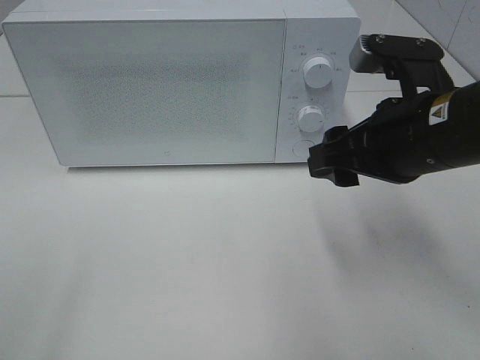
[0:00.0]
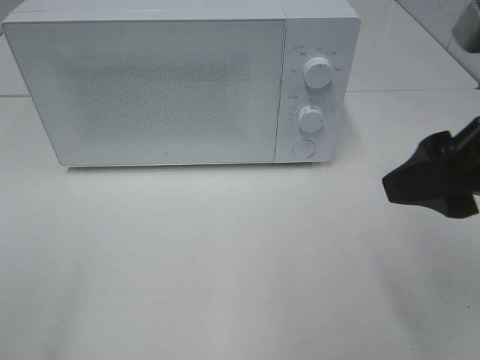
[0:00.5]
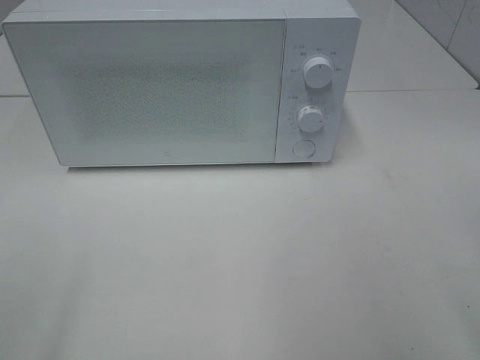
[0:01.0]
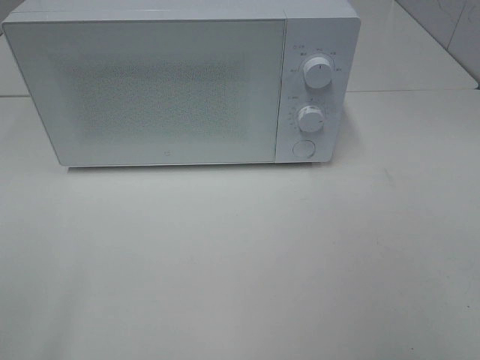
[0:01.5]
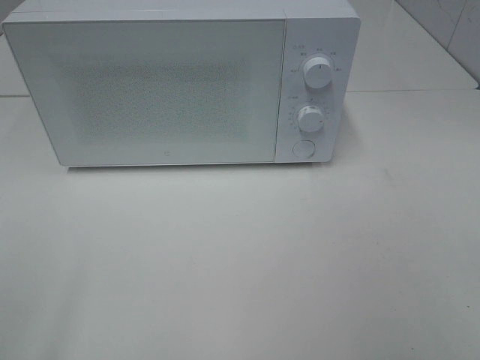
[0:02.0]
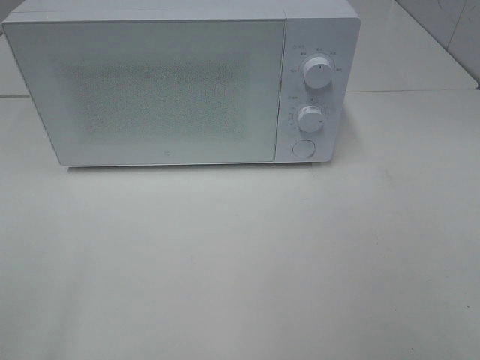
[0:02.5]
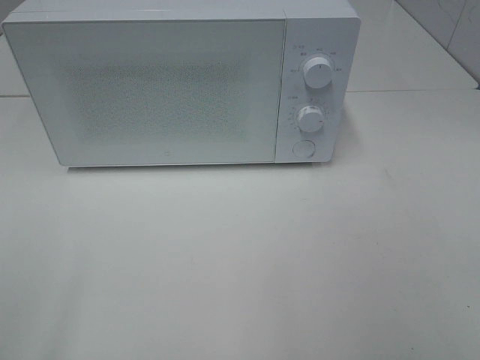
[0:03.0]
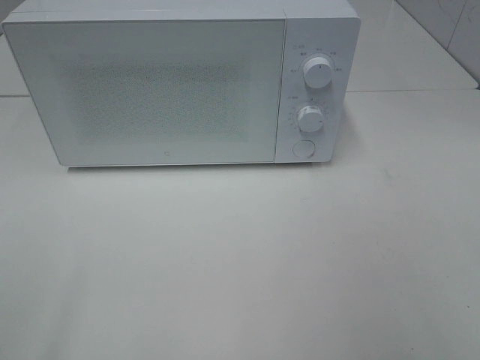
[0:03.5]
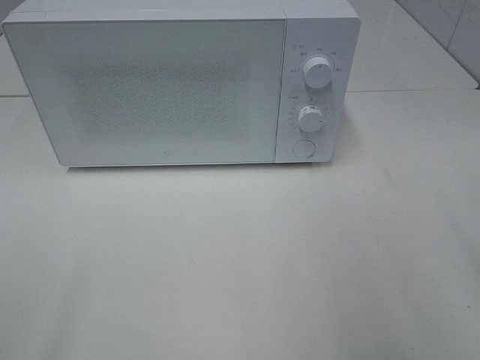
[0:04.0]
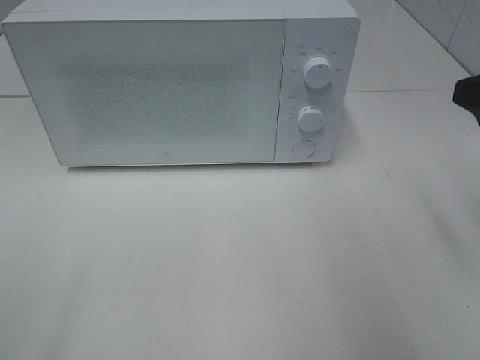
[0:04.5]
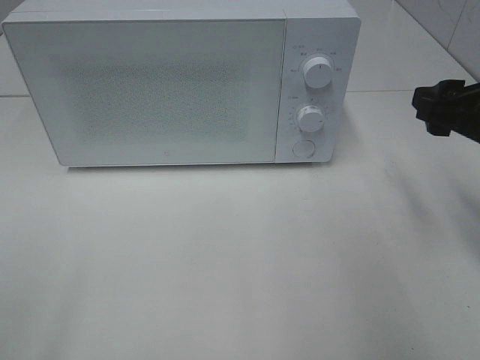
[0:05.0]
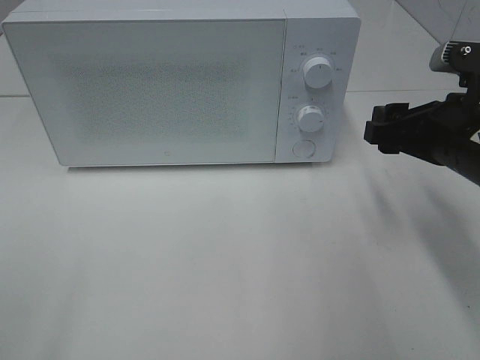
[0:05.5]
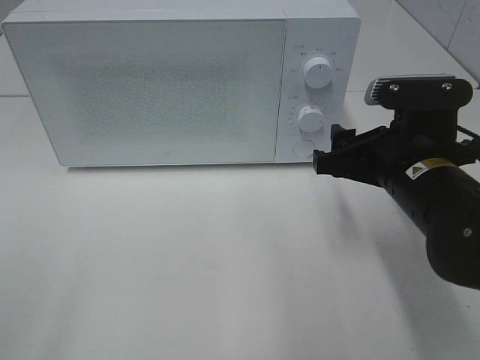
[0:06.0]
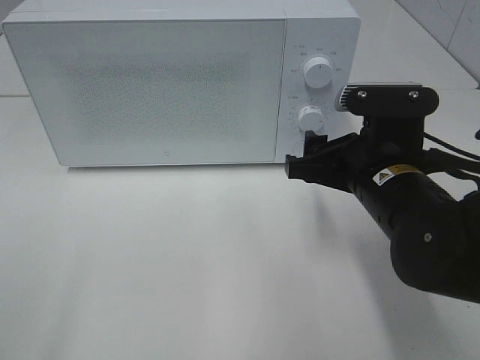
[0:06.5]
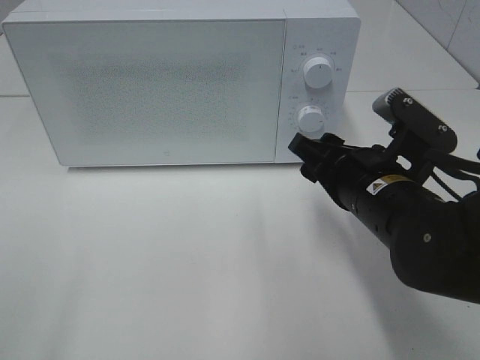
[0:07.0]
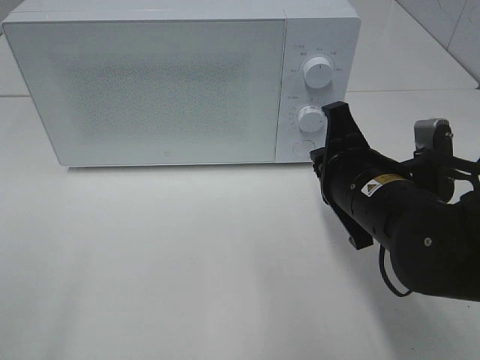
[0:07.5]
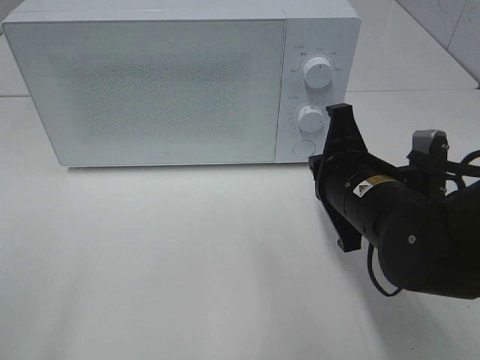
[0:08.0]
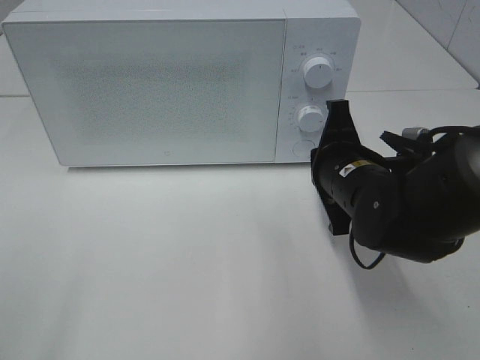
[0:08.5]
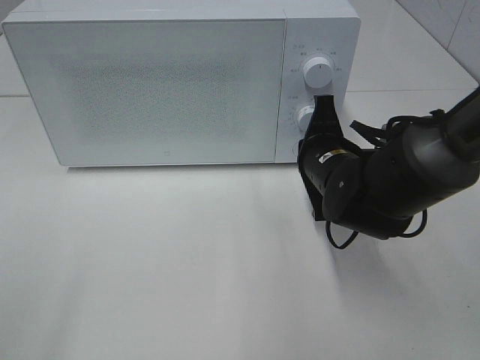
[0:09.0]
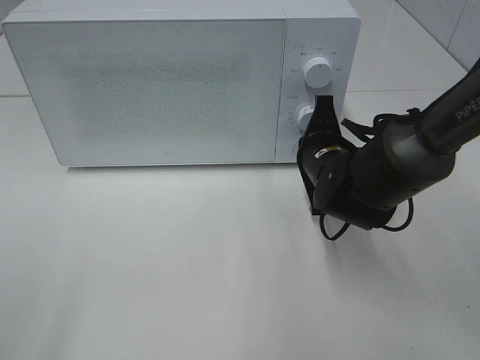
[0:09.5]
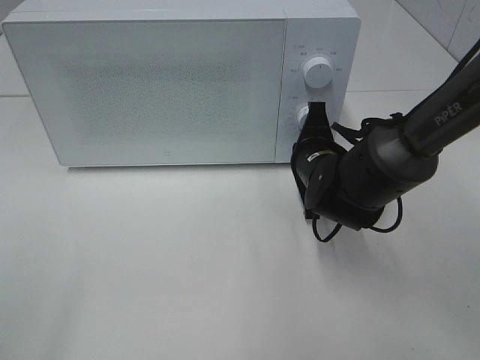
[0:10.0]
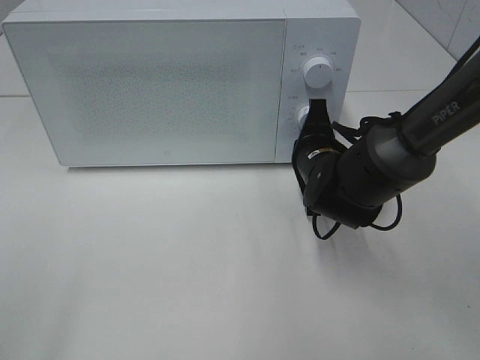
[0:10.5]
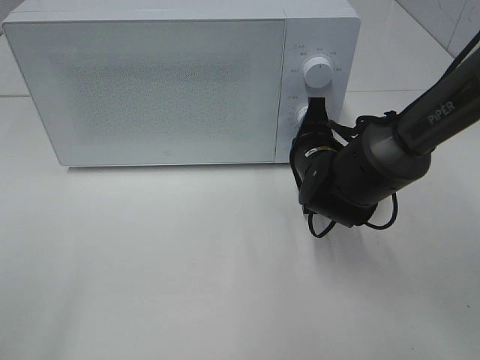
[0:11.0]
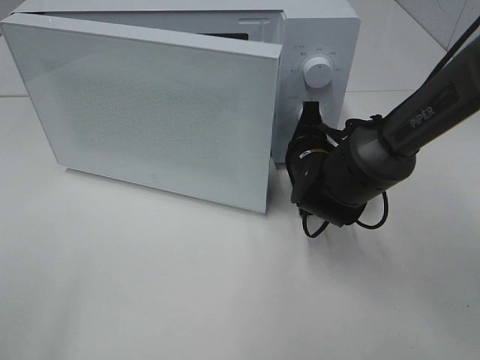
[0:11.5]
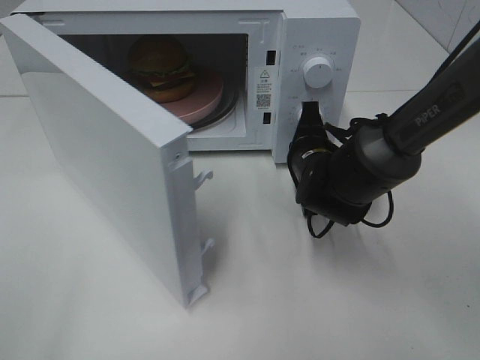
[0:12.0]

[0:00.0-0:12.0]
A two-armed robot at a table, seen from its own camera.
Task of the whole recording: Heat the burger.
0:00.0 to 0:02.0: The right gripper travels backward and to the right by approximately 25 cm.
0:04.0 to 0:06.0: The right gripper moves downward, to the left and forward, some 20 cm.
0:06.0 to 0:08.0: The right gripper closes.
0:08.0 to 0:10.0: The right gripper goes about 10 cm forward and downward.

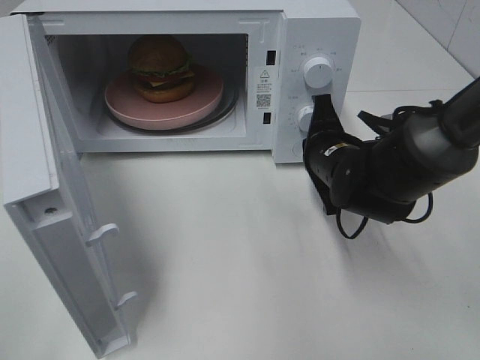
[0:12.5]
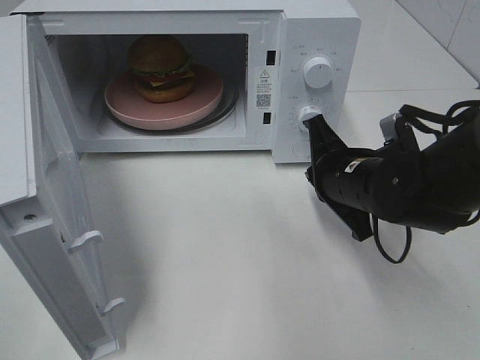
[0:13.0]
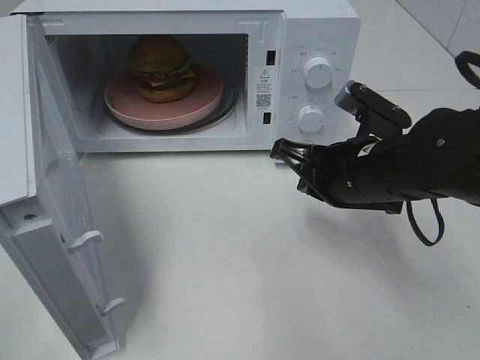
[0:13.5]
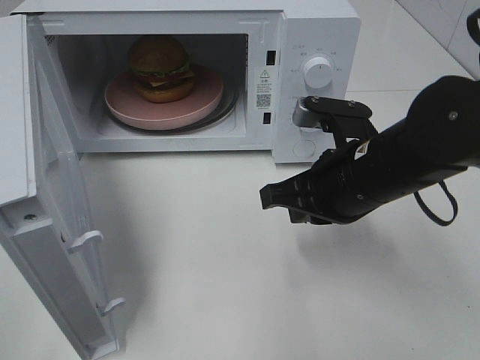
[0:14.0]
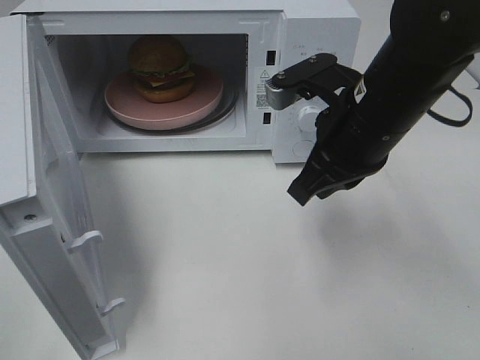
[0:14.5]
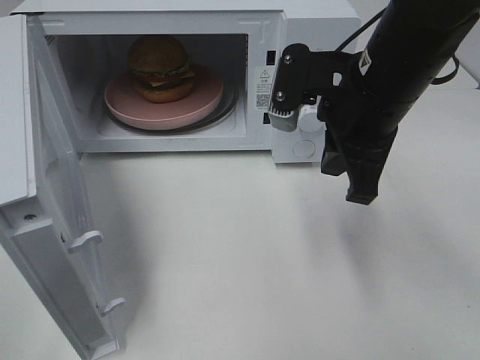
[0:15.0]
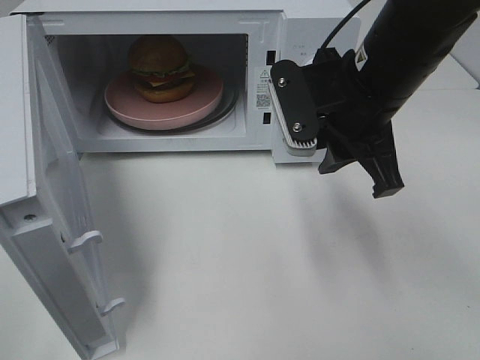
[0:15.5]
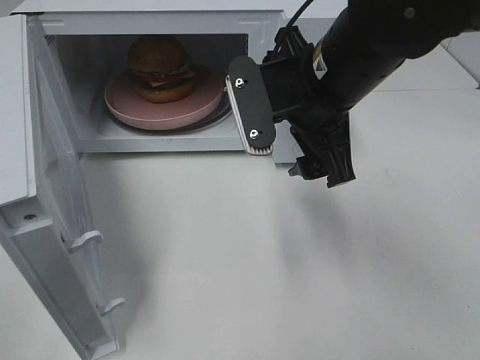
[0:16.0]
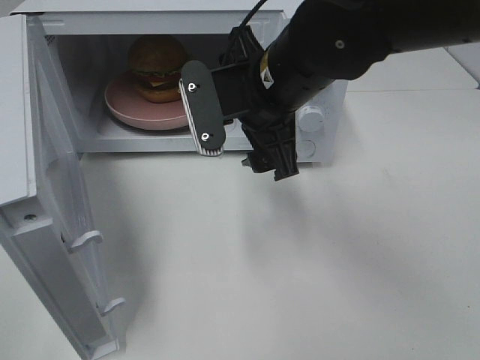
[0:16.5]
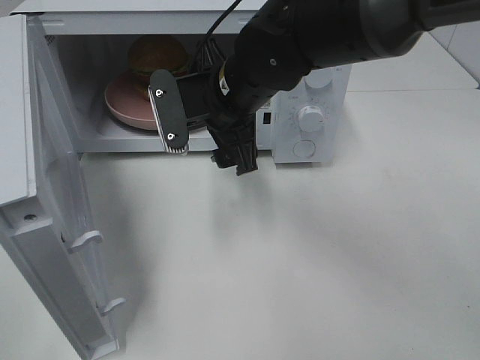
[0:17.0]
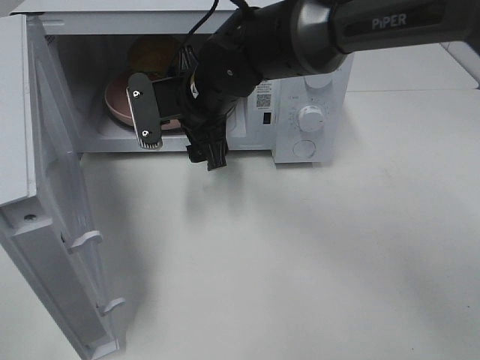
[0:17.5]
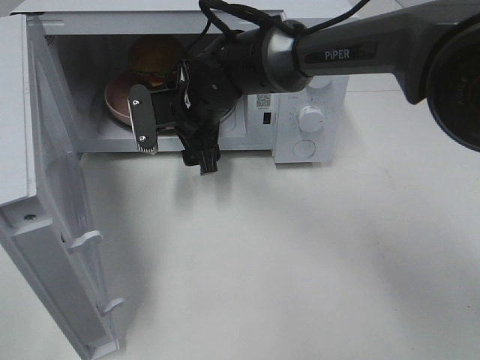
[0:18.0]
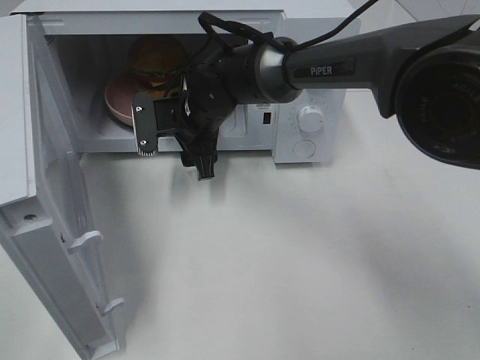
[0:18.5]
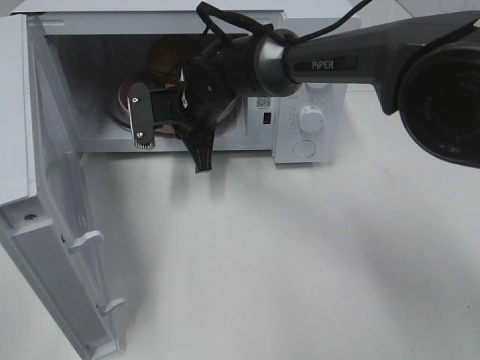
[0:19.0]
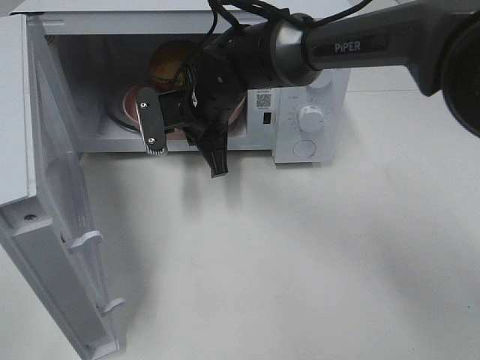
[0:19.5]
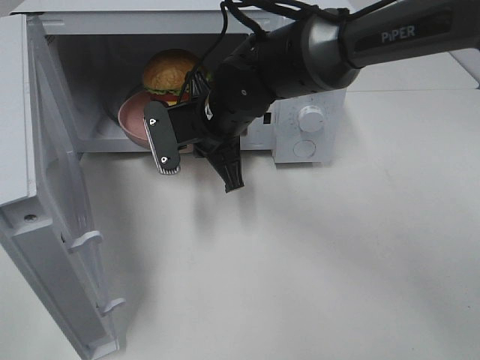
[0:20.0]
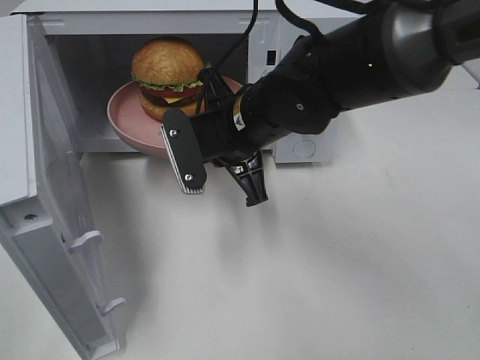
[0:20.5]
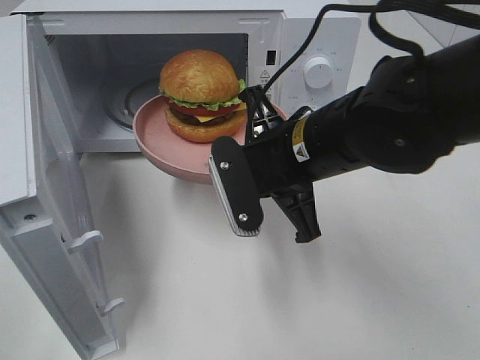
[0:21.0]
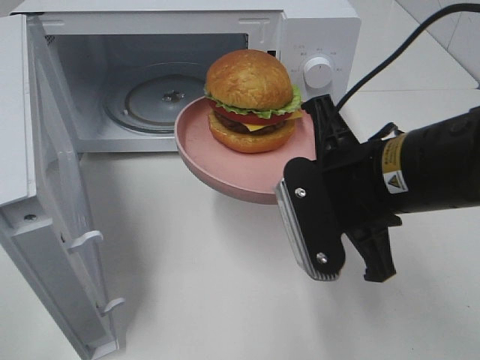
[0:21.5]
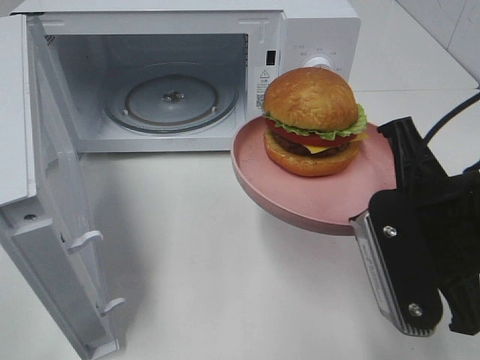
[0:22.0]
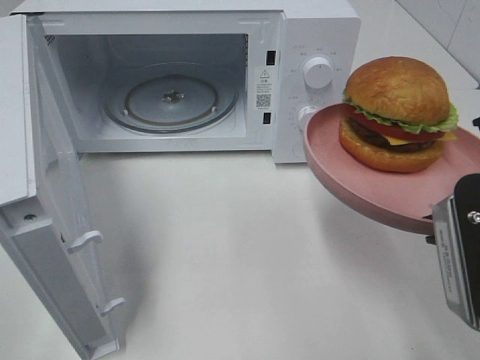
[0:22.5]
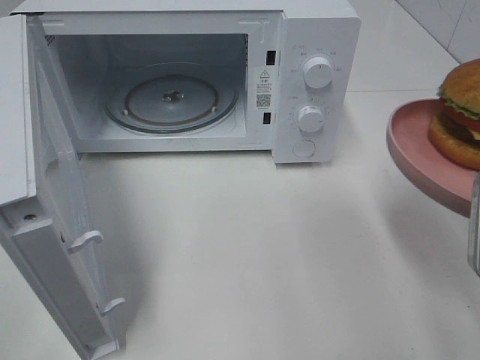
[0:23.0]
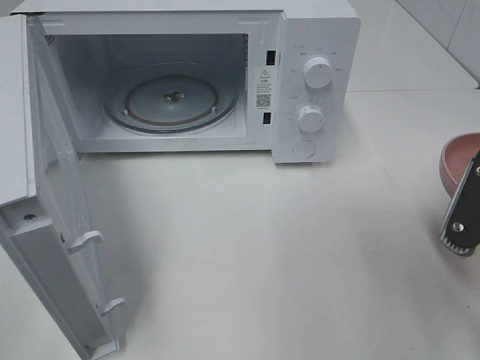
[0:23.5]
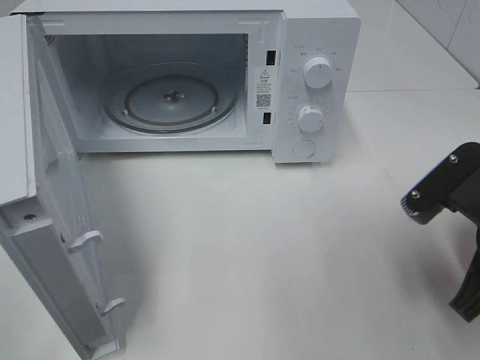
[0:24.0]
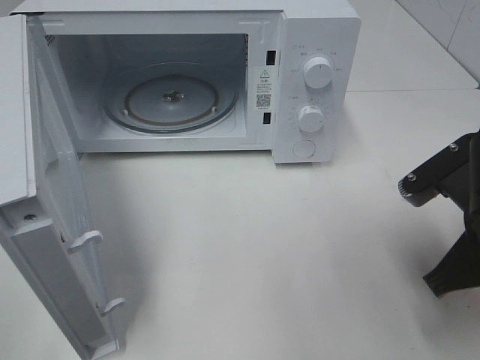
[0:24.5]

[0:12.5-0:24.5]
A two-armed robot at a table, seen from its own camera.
Task of the whole recording: Heat the burger.
Step, 0:13.0 to 0:18.5: Right hand: grab the plate with the hamburger.
0:12.5 to 0:14.5: The right gripper travels upward and backward by roughly 15 cm.
0:14.5 to 0:16.5: The right gripper goes approximately 10 cm to the left, and opens up.
0:16.5 to 0:18.5: The right gripper moves forward, downward and to the left, roughly 15 cm.
0:18.5 to 0:20.5: The right gripper shifts approximately 15 cm backward, to the right and upward, and closes.
0:20.5 to 0:22.5: The right gripper goes some 25 cm to the right and backward.
0:22.5 to 0:24.5: The right gripper travels downward and forward by about 10 cm.

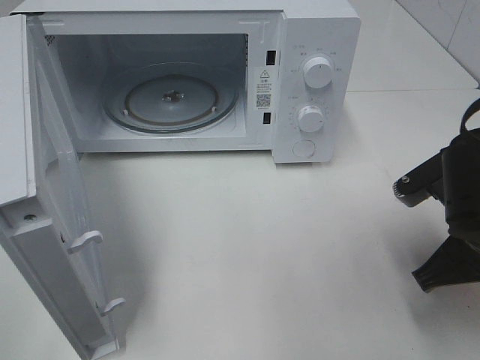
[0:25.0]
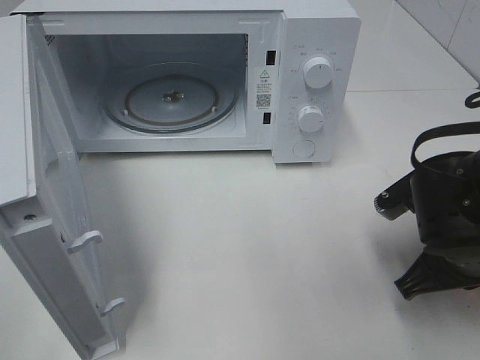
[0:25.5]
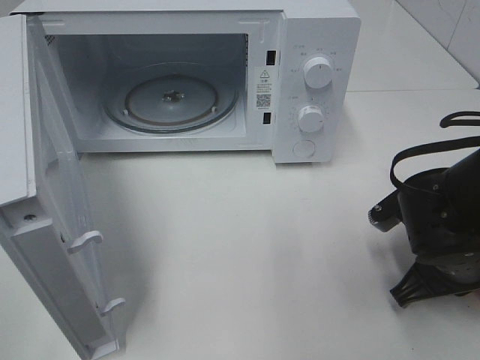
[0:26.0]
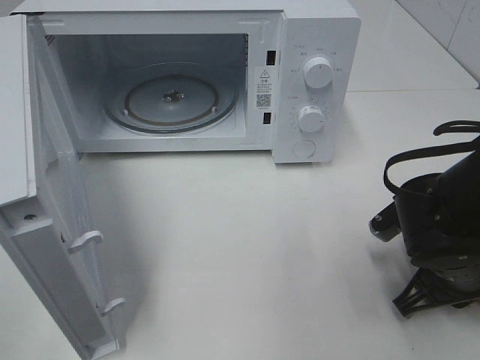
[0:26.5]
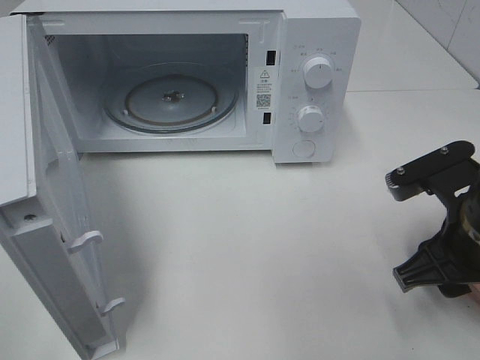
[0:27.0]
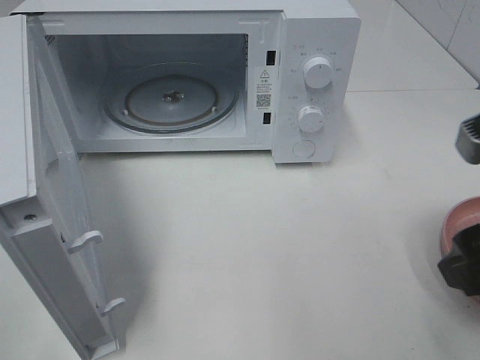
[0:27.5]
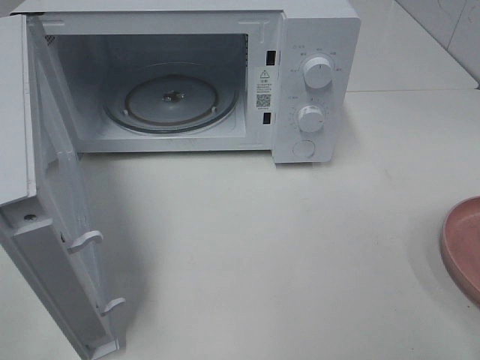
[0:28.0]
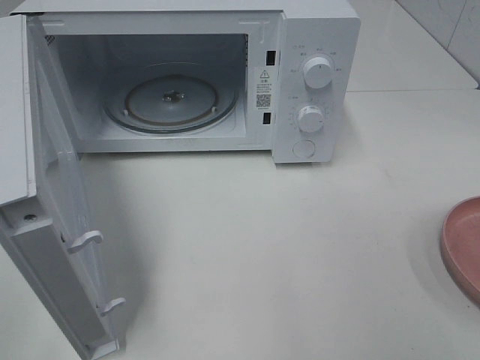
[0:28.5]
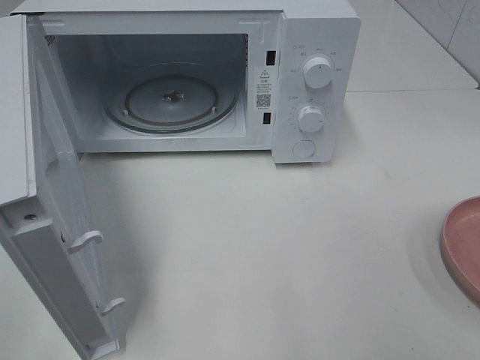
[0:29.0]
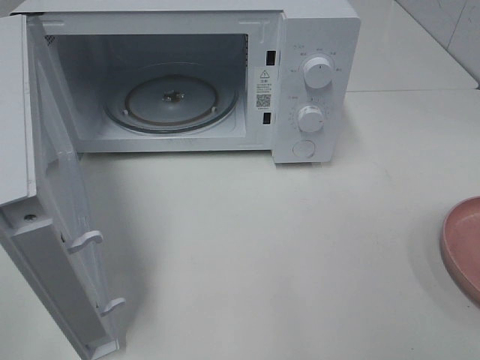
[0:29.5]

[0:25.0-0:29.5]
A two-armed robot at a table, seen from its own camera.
Task of the whole recording: Heat the burger.
0:25.0 to 0:27.0: The right gripper moves some 5 cm downward and comes back, and opens its fingers.
0:27.0 to 0:29.5: The right gripper moves backward, upward and to the right, some 25 cm.
